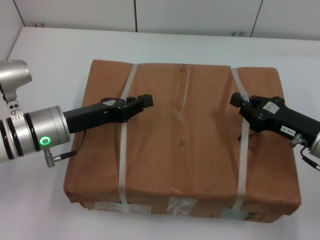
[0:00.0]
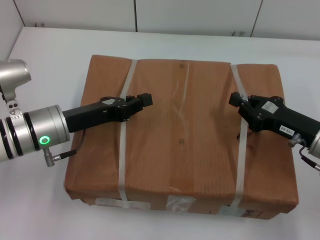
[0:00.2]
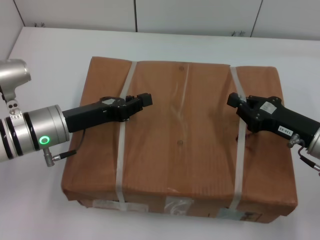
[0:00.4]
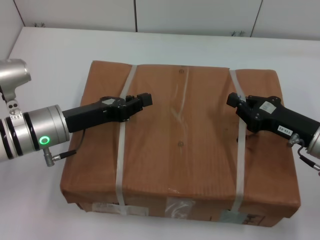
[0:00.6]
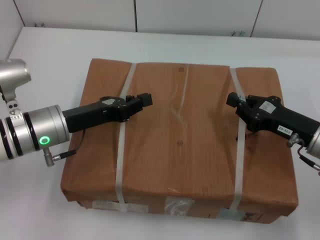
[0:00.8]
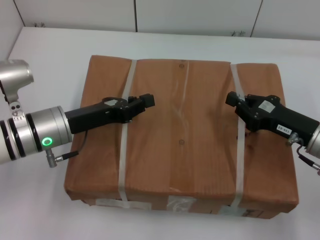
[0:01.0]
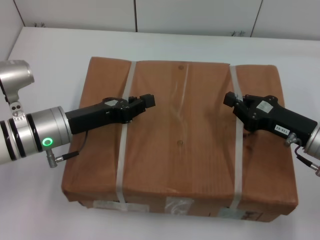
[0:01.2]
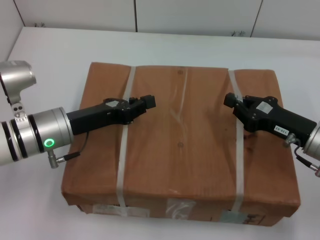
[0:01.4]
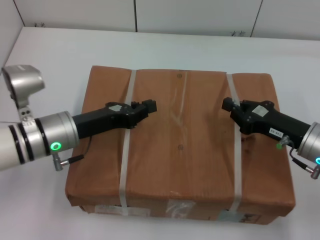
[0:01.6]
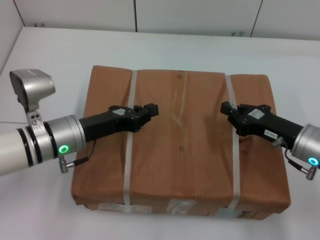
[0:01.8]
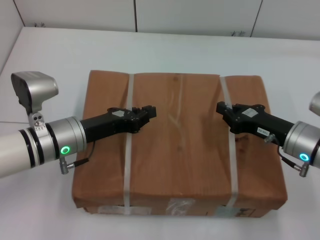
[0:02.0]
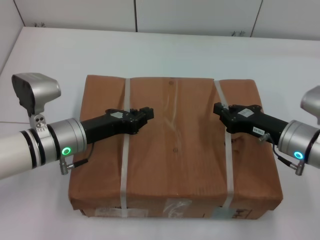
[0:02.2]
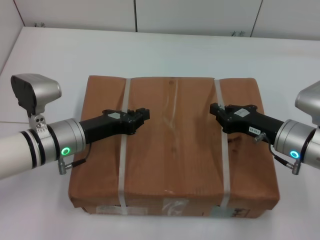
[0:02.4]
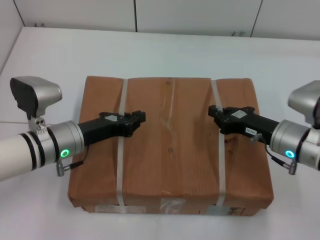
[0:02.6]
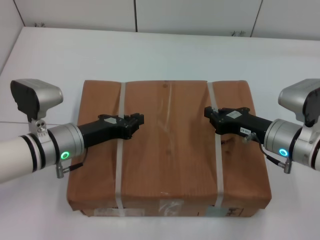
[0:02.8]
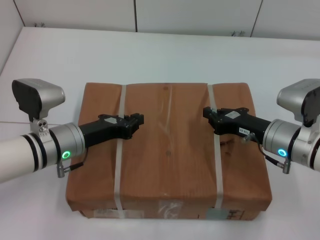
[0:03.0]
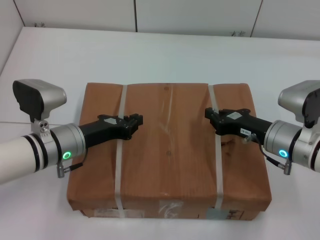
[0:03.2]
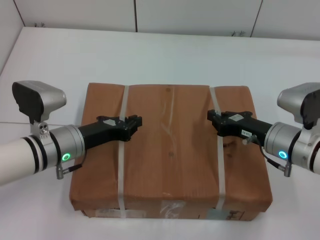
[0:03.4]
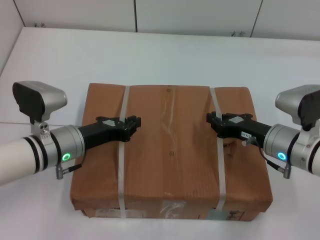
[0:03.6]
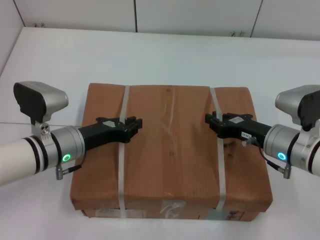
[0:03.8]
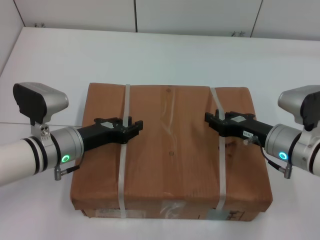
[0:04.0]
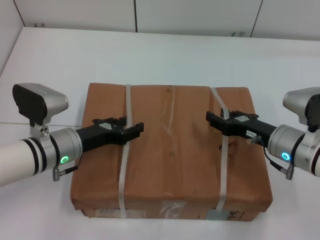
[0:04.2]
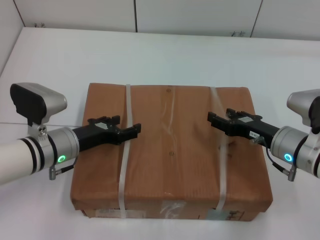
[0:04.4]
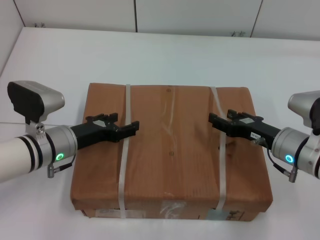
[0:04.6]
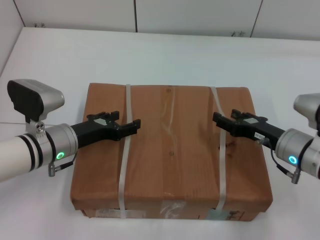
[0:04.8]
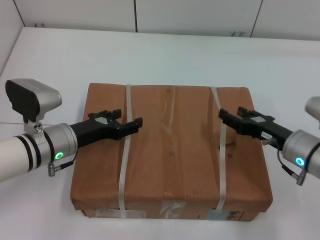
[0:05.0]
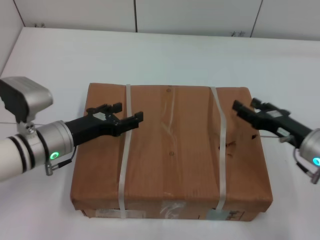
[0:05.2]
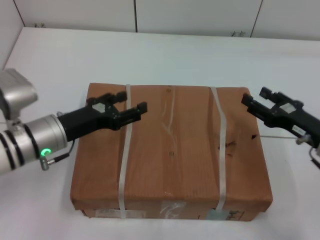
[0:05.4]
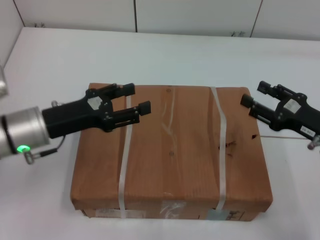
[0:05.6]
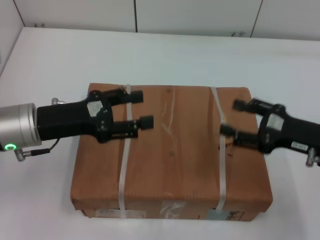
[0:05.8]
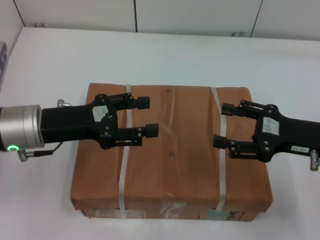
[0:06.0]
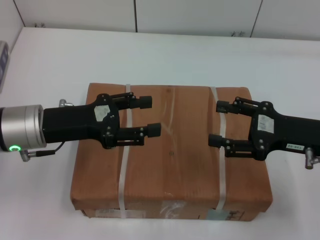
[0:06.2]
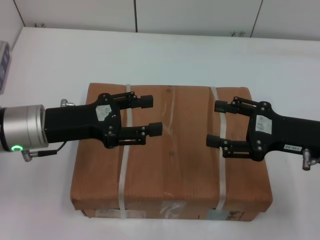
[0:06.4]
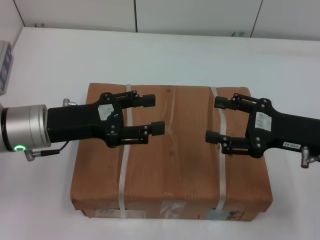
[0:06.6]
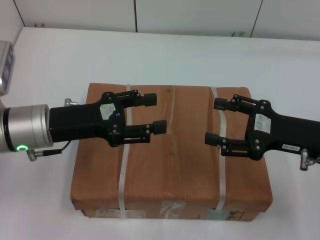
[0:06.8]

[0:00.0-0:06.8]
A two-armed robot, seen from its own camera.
Task of the whole recording: place the box on the table with both arms.
Step, 0:00.0 to 0:03.4: Place the box on the table with left gripper.
Step, 0:00.0 to 0:03.4: Place the box on the table with right gripper.
Step, 0:03.6 to 0:04.4: Loosen the box on the table with left gripper.
Step, 0:03.6 to 0:04.4: Loosen the box on the table with right gripper.
0:00.0 to 0:01.4: The two grippers keep their place.
0:01.4 to 0:02.8: The right gripper moves approximately 5 cm.
0:02.8 to 0:04.0: There are only small adjustments of the grippers.
0:04.0 to 0:05.4: The left gripper opens up. The right gripper is displaced to the right by roughly 5 cm, and opens.
0:05.4 to 0:06.8: Both grippers move upward, about 5 cm.

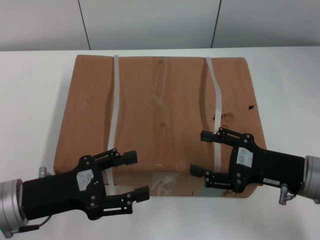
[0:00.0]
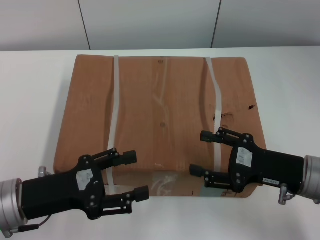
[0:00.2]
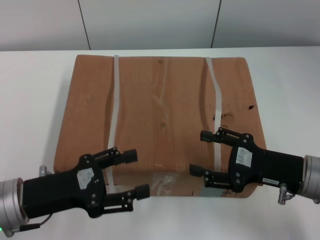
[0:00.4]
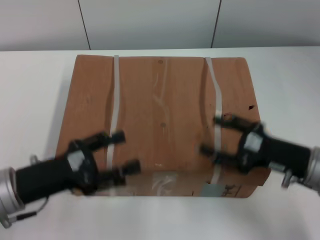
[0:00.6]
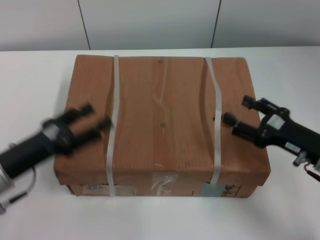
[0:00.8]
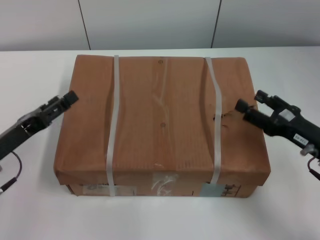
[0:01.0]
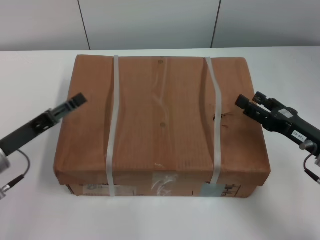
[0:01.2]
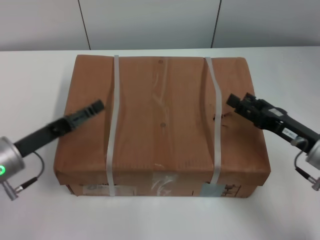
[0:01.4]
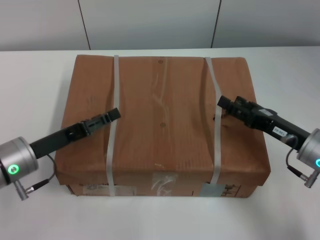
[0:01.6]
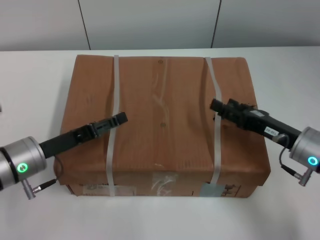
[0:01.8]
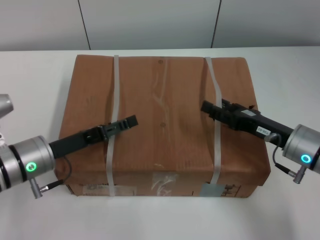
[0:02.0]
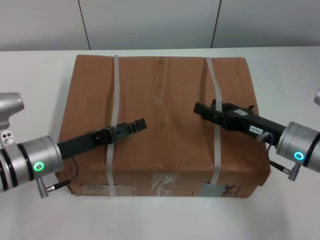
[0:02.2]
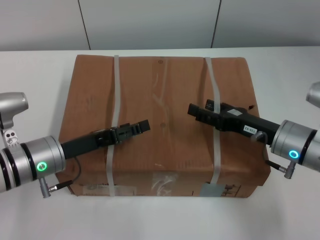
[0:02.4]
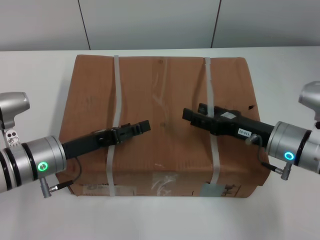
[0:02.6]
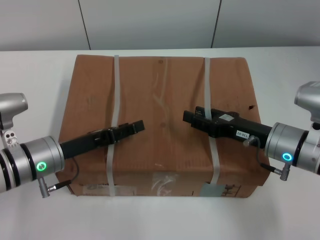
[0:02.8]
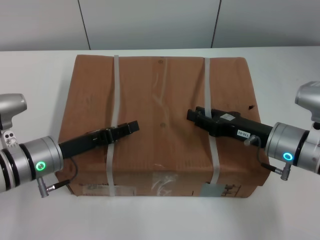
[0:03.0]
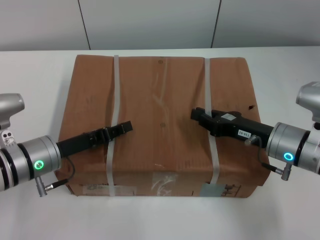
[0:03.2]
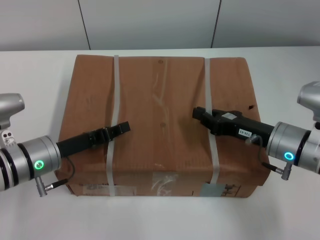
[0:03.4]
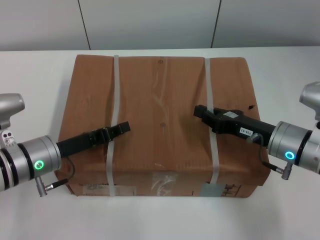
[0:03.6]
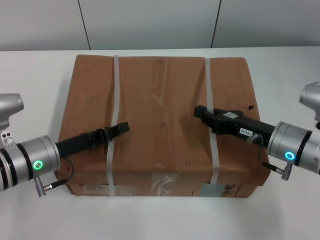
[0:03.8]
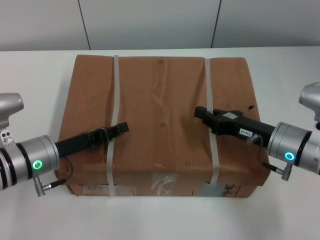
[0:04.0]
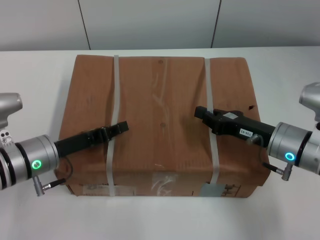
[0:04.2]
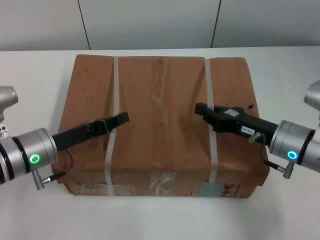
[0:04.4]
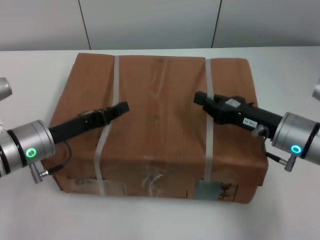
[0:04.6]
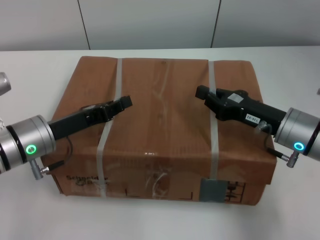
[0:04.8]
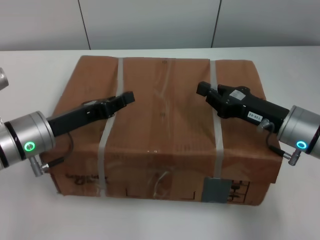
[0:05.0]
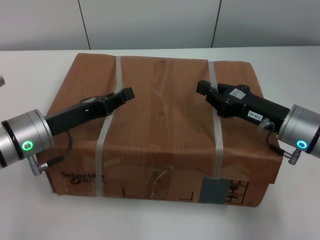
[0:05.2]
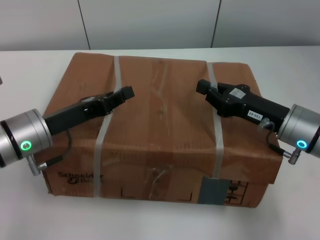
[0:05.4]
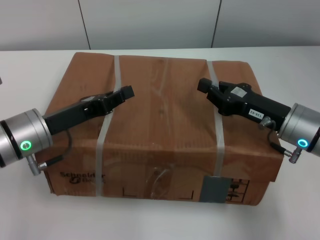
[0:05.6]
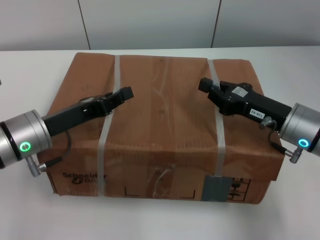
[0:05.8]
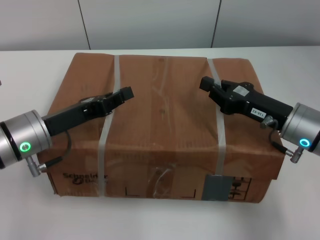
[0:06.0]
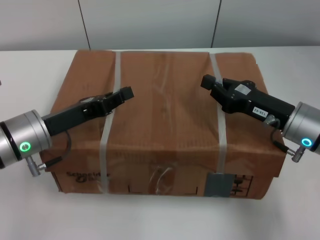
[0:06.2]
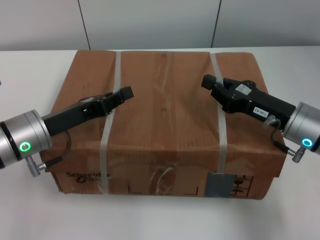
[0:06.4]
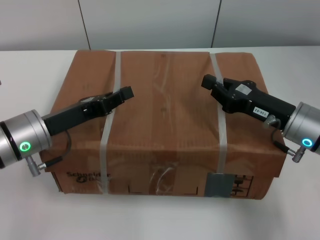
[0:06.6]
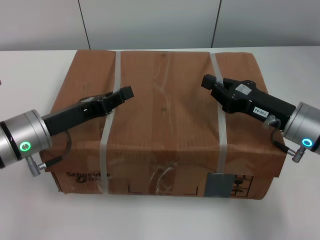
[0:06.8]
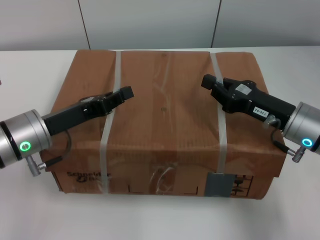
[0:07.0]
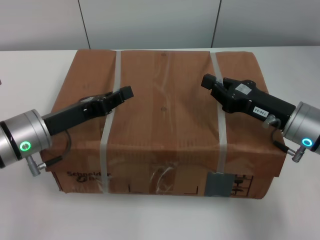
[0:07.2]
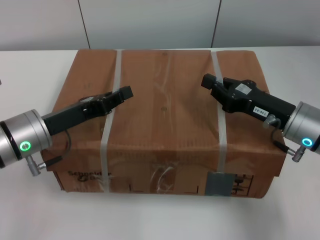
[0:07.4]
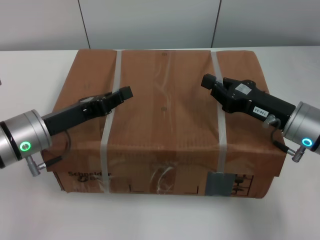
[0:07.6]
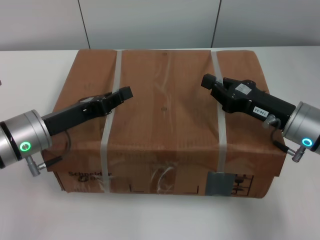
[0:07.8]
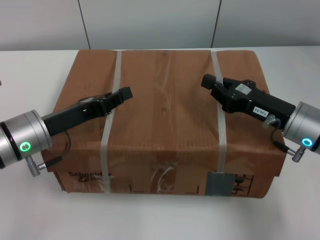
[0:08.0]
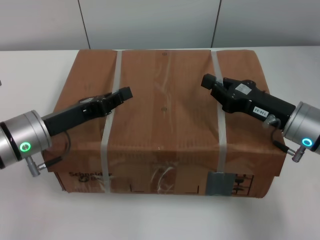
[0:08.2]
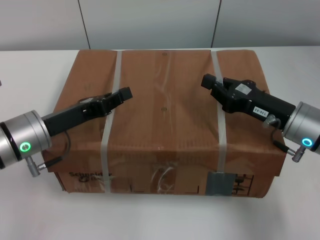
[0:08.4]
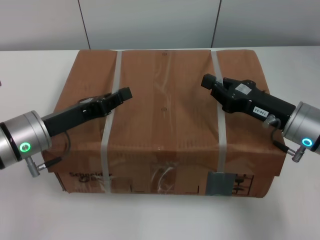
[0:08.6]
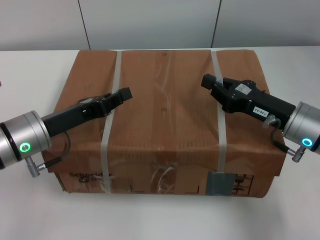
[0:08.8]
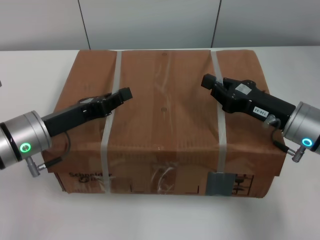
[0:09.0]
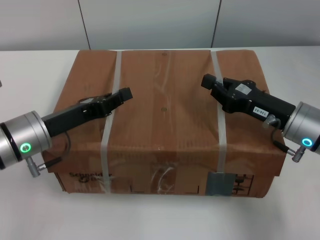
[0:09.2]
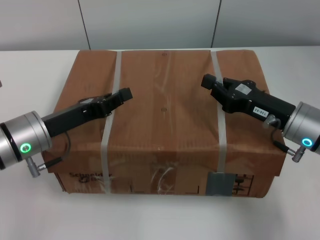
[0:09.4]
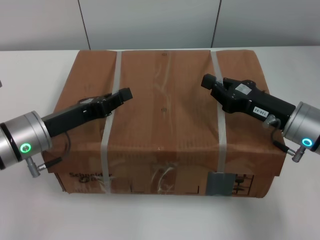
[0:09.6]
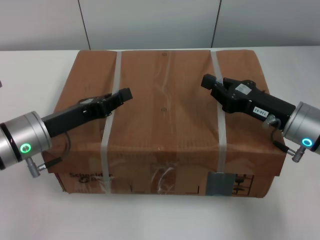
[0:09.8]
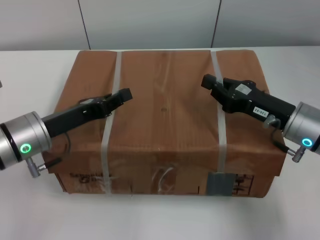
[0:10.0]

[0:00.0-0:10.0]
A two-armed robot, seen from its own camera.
Task of the whole recording: pick up the box from the table with both arms.
Step, 0:00.0 to 0:03.4: Grasp the bandage with left gripper.
Step, 0:00.0 to 0:03.4: Grasp the bandage with right gripper.
Step, 0:03.6 to 0:05.4: Lift the box with left gripper.
Step, 0:03.6 to 0:05.4: Lift the box with right gripper.
0:00.0 to 0:01.4: The left gripper is displaced forward by approximately 5 cm.
0:01.4 to 0:02.8: The right gripper is displaced to the left by approximately 5 cm, while the left gripper moves to the right, some 5 cm.
0:02.8 to 0:04.2: The right gripper closes. Meanwhile the left gripper closes.
0:05.8 to 0:10.0: Both grippers stay put.
